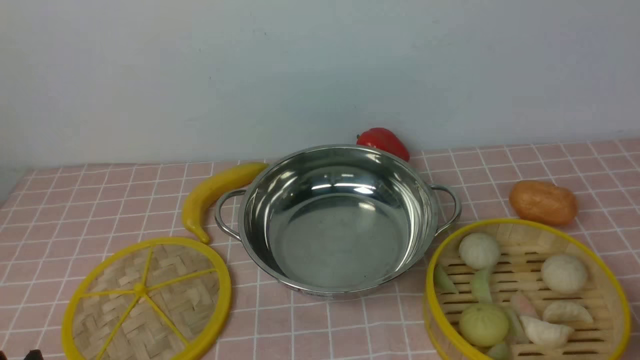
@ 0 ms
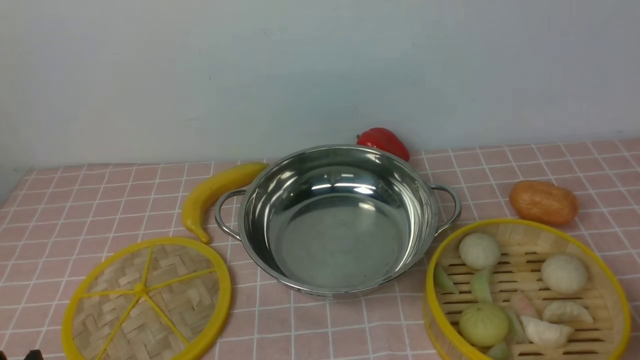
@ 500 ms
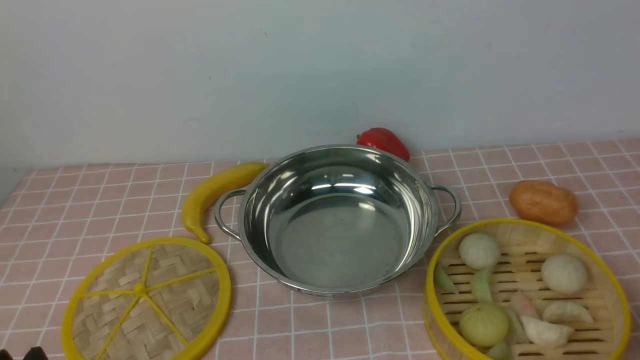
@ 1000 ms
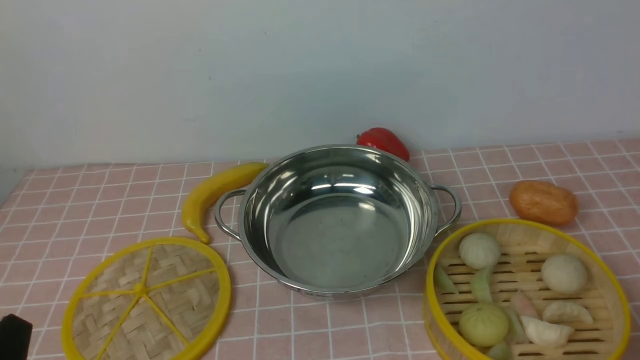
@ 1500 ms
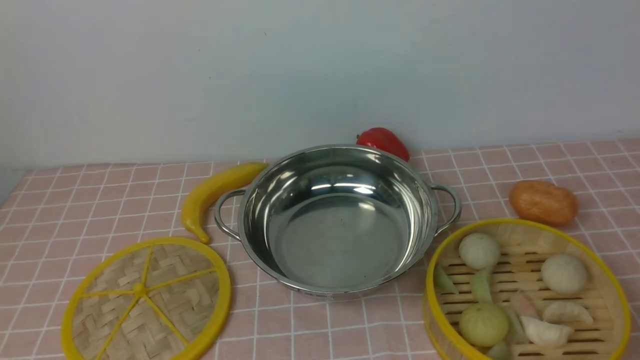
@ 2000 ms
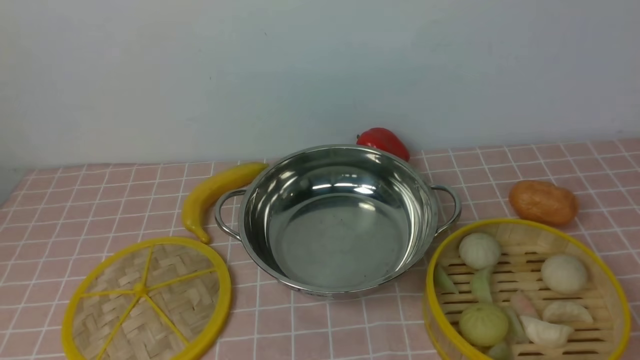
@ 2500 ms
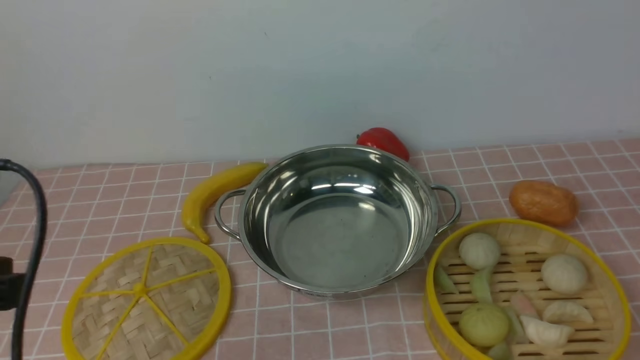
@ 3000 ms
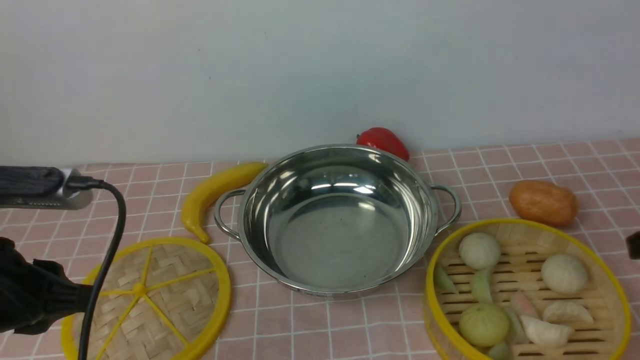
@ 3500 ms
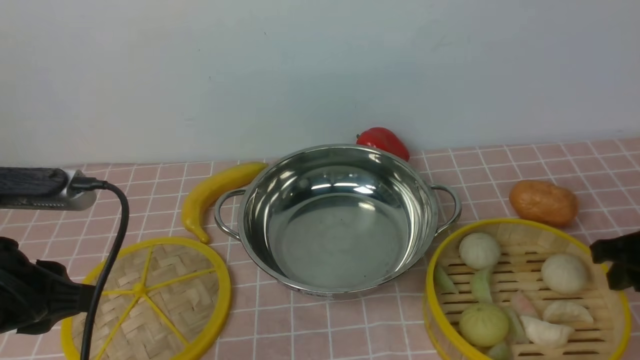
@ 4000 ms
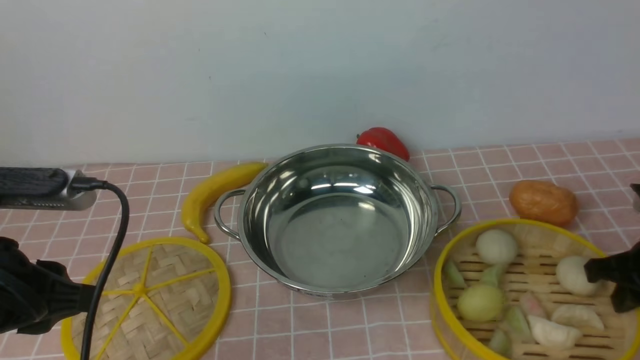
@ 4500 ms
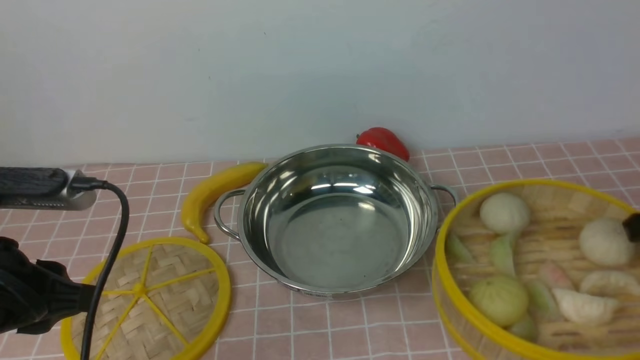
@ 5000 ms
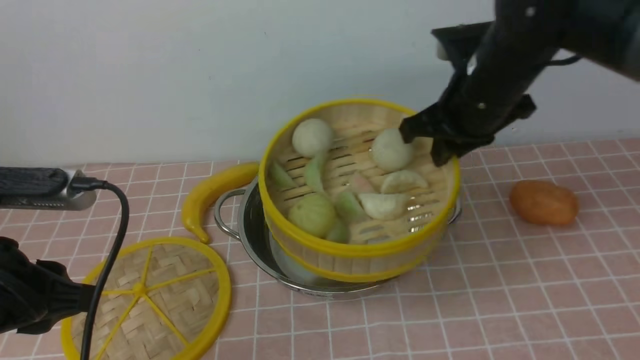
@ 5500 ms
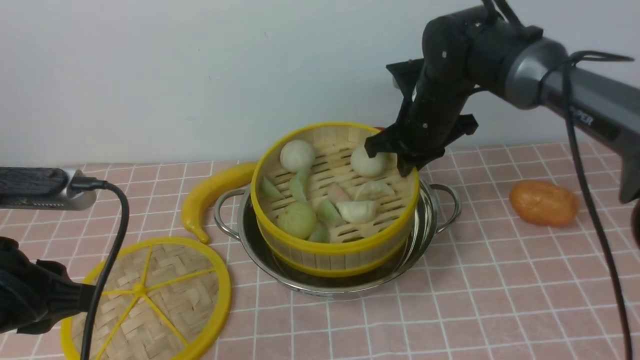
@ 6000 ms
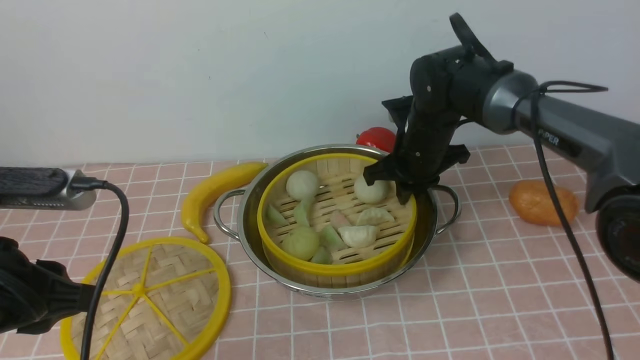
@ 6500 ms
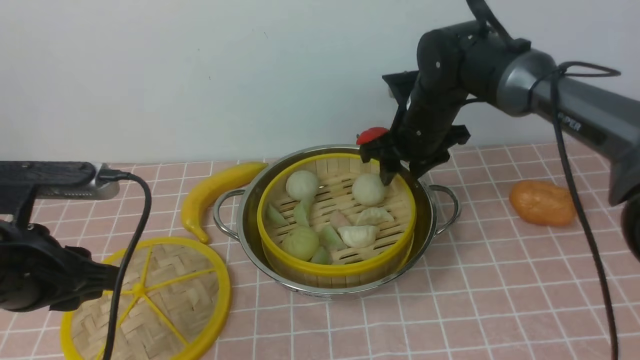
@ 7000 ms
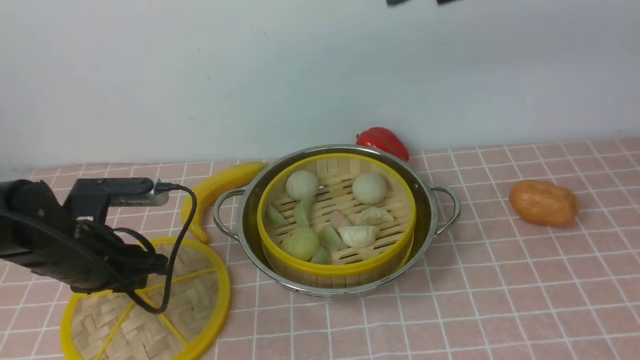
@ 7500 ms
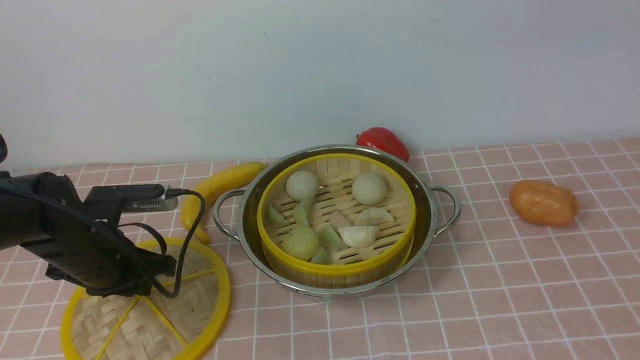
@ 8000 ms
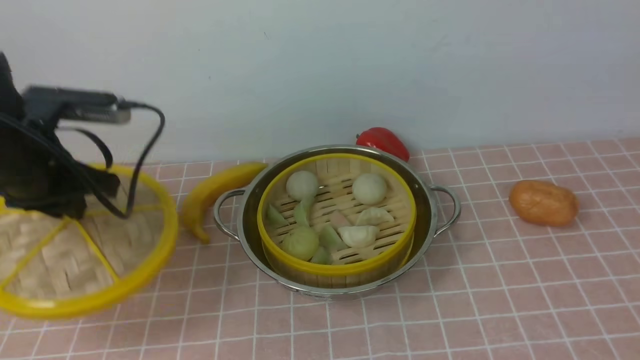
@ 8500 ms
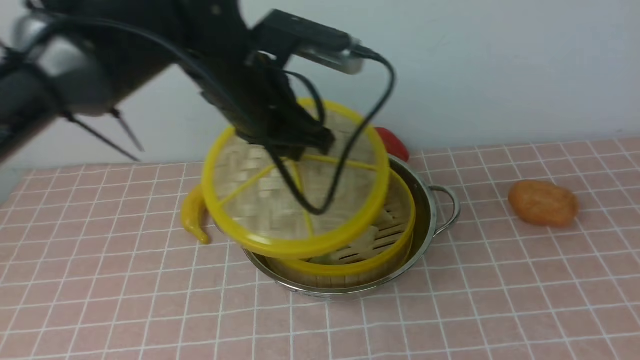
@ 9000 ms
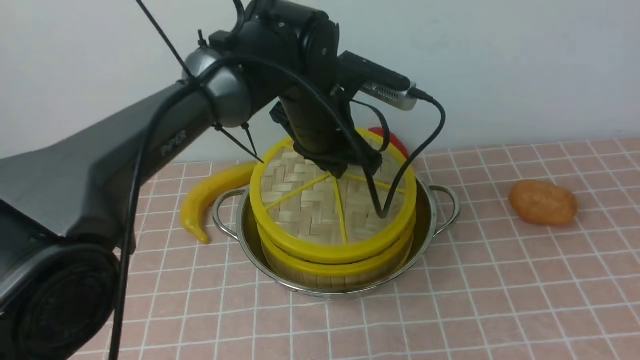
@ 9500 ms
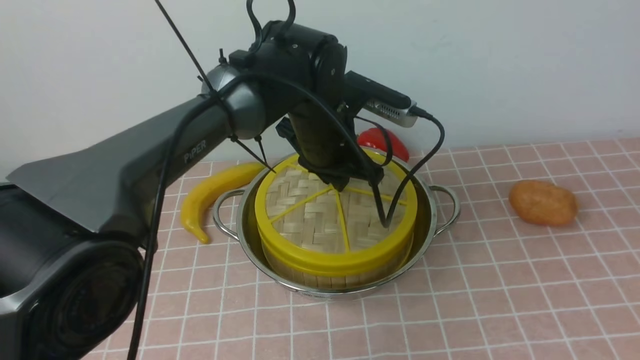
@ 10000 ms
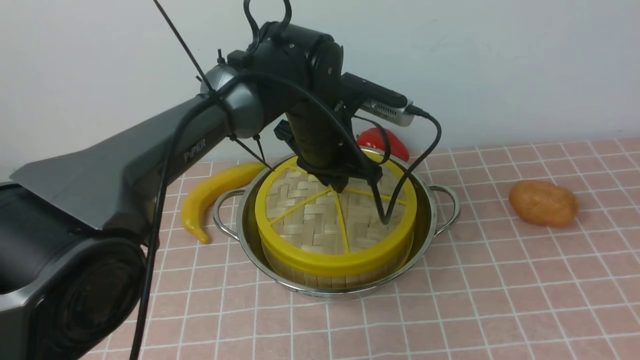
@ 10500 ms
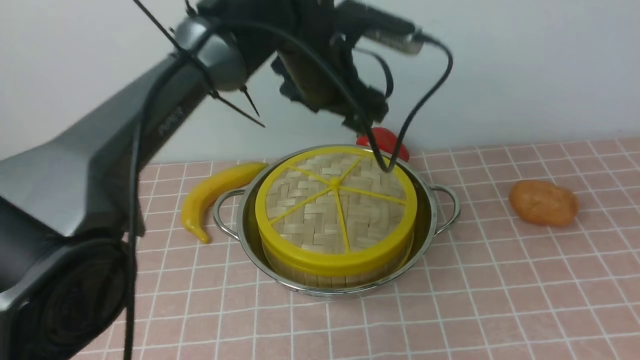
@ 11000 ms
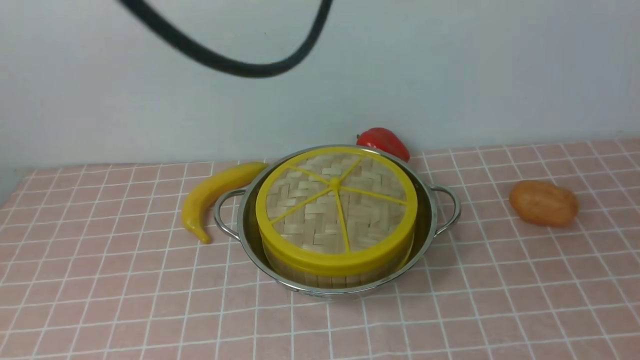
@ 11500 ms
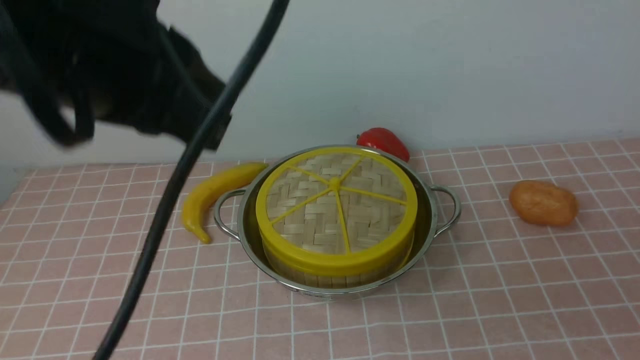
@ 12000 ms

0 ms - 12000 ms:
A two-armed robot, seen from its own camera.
Task of the whole recording: place the steamer in the pot on the pink tablecloth, and put the lid on the steamer.
Step, 0 ms - 4500 ms: use the right arm to lift the steamer closest to it.
Step, 5000 ms - 6500 ms: use the right arm to put the steamer into the iron steamer pot in the middle.
Step, 7500 ms - 8000 ms: use the left arm to lift the lid of the steamer.
Step, 8500 ms - 10500 ms: use the left arm to place the steamer lid on the steamer.
2000 ms - 4000 ms: The right gripper is displaced forward and downward by roughly 25 cm. The left gripper heads forward, covering some 15 cm.
4000 ms - 6000 ms: The right gripper travels to the left and forward by about 25 cm, and closes.
6000 ms - 8000 ms: The left gripper goes roughly 20 cm forward and downward. The right gripper goes roughly 40 cm upward and backward, and opens its fingers.
8000 ms - 10000 ms: The left gripper goes roughly 25 cm to the right and forward, while the right gripper goes roughly 20 cm downward, backward and to the right.
10000 ms - 12000 ms: The left gripper is displaced upward, backward and to the left by about 30 cm, and opens, then closes once more. Meanwhile the right gripper moves downward and backward, approximately 10 cm, and closes.

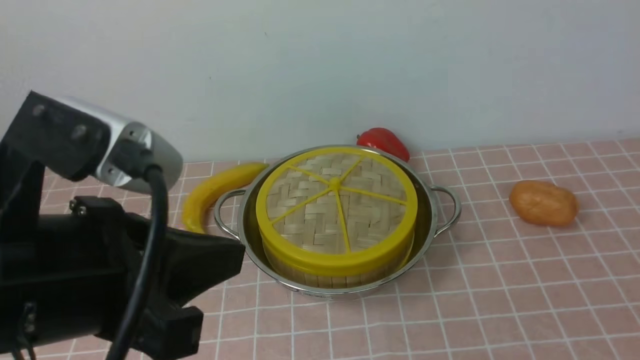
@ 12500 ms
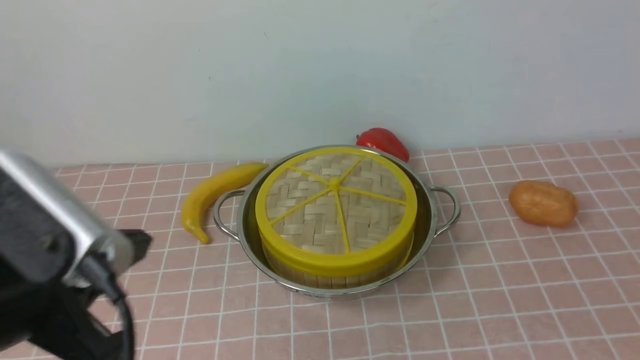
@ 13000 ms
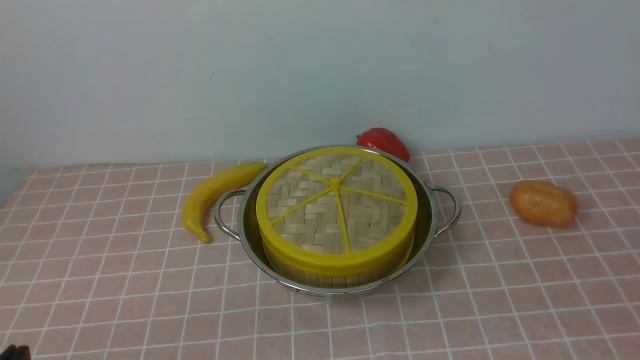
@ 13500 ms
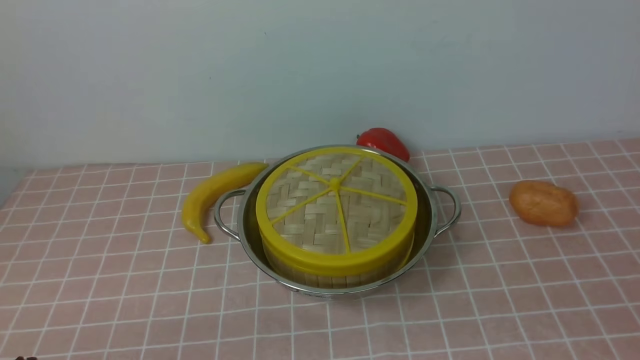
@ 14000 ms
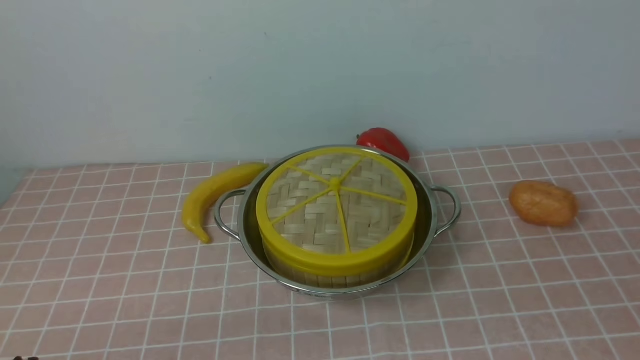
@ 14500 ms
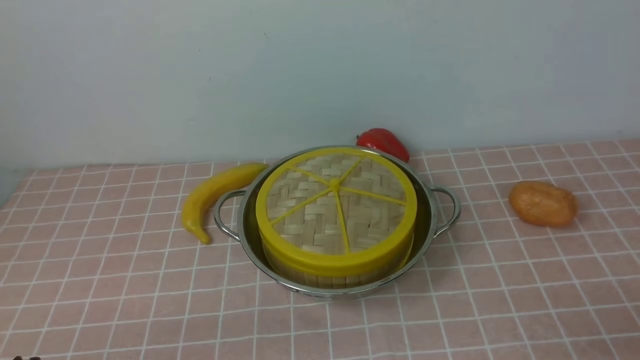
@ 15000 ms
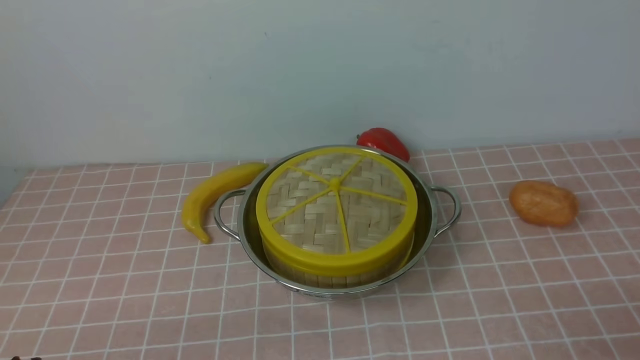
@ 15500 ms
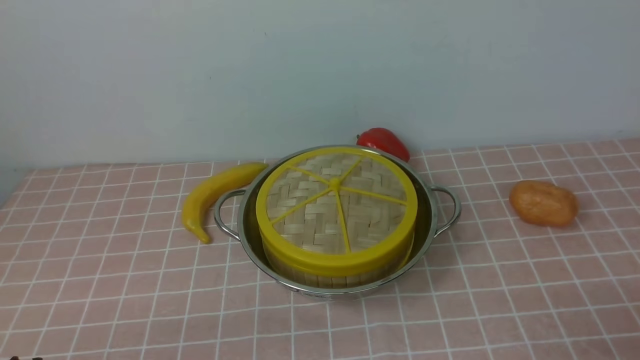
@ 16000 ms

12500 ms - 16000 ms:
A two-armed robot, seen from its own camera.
Task of the whole recording: place the steamer in the pot on the pink tablecloth, and put the lid on the steamer.
12500 ms - 14500 ms: The left gripper moves downward, to the left and backward, about 25 cm, while the right gripper opens.

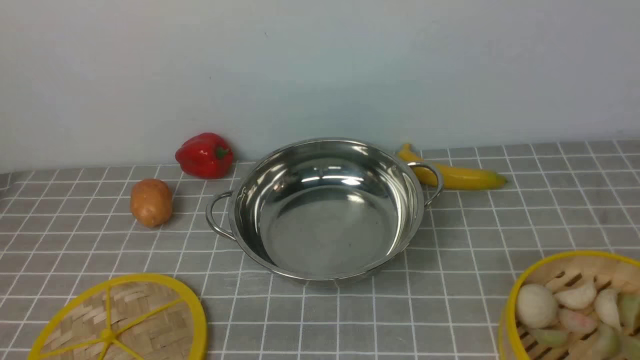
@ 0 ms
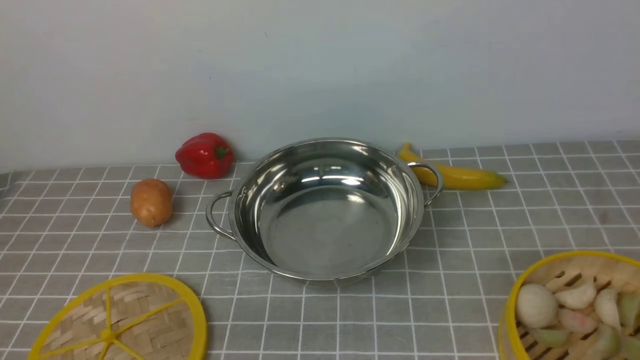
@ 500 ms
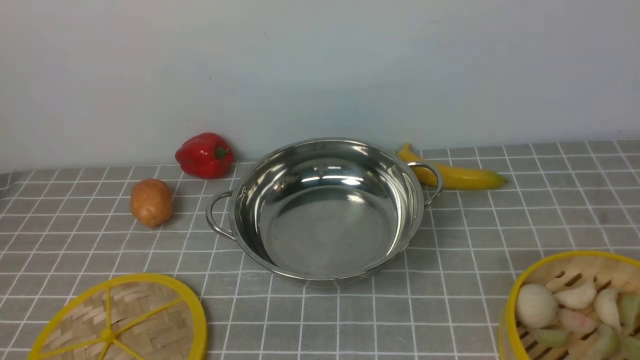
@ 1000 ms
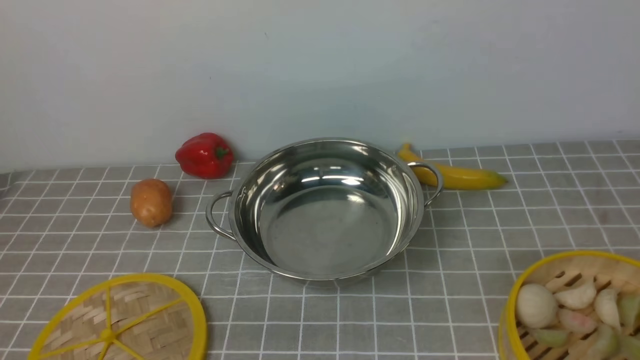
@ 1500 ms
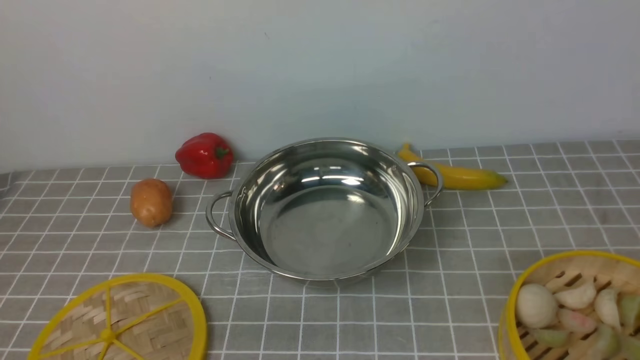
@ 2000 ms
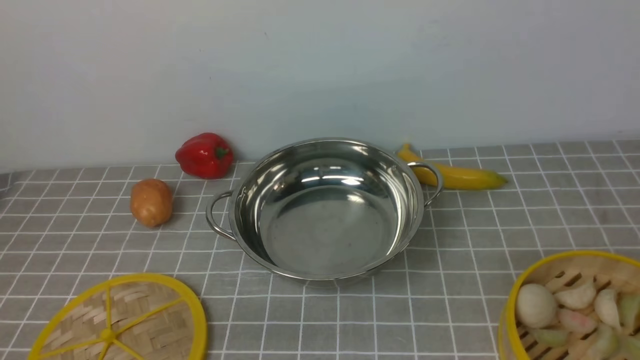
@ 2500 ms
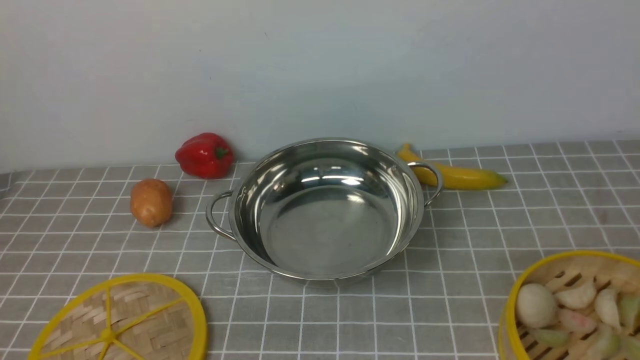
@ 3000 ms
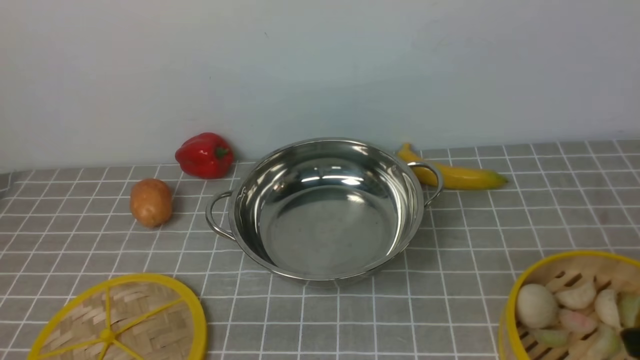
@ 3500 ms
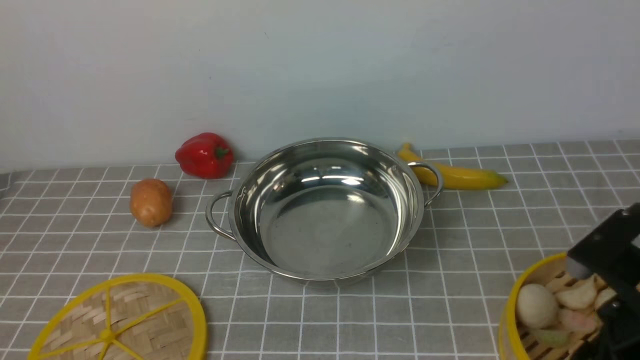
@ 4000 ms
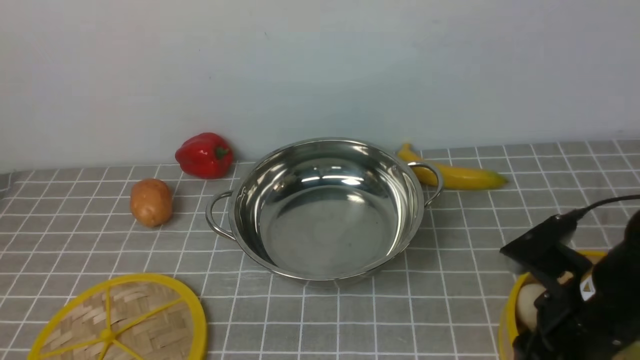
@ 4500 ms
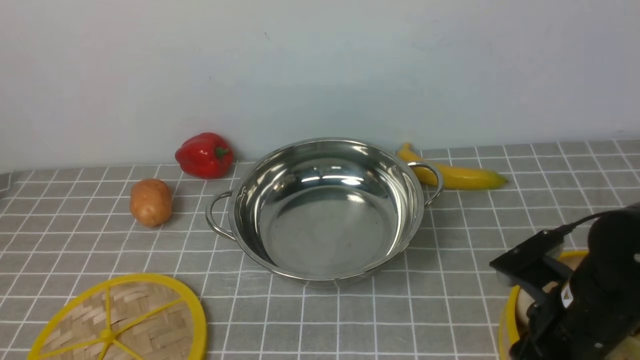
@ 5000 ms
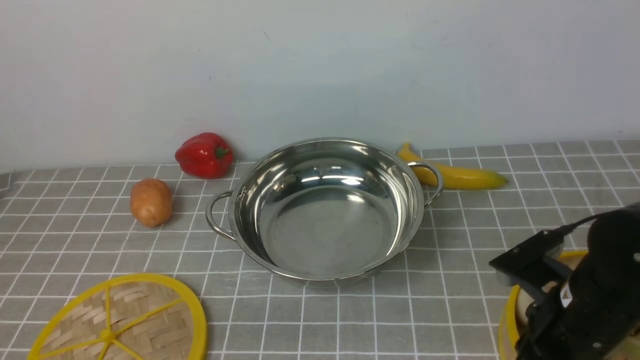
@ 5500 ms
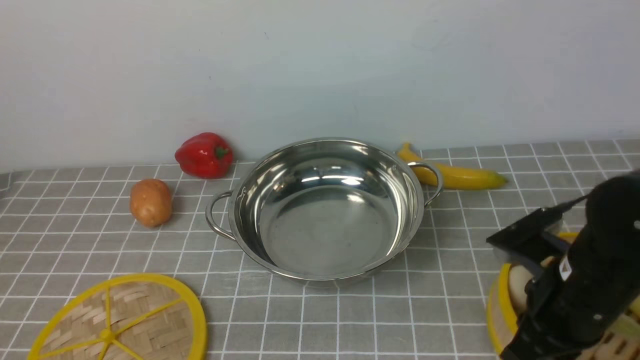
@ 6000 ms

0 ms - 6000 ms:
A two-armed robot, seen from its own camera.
Task of the whole recording: place the steamer in the pot on the grey tablecloth, and put the lid on the steamer.
Step, 0 ms - 6000 ms: use the right arm to lift the steamer closest to it.
2000 ms - 4000 ms: The right gripper goes approximately 15 cm forward, to the left and upward, and opens up.
4000 ms - 6000 ms: The right gripper shifts roughly 5 cm forward, and closes its fingers.
